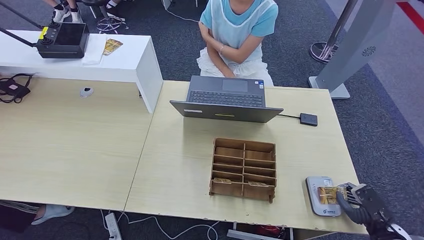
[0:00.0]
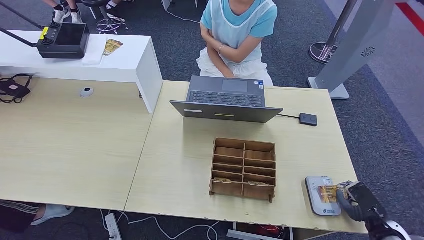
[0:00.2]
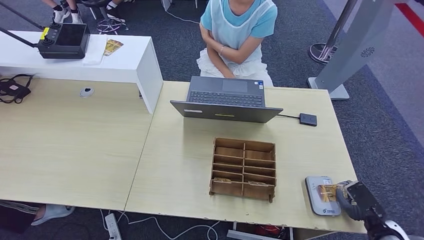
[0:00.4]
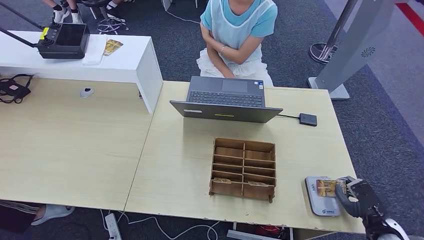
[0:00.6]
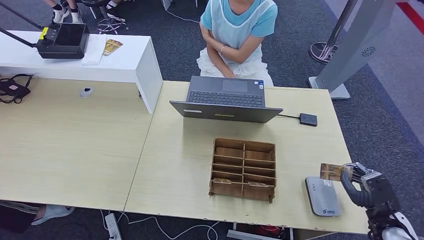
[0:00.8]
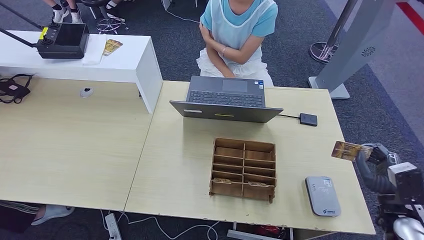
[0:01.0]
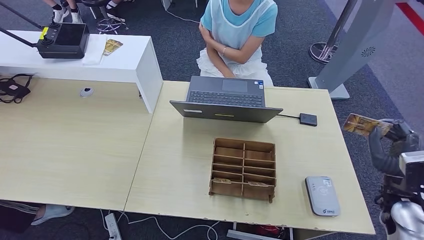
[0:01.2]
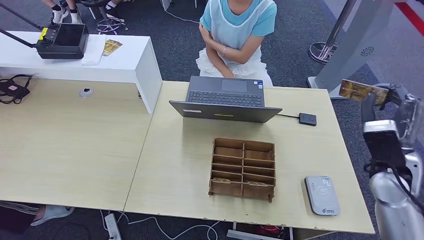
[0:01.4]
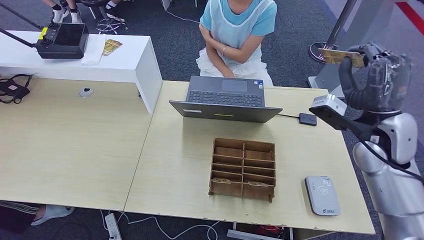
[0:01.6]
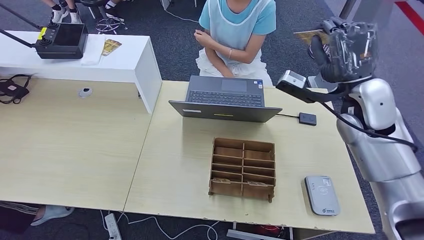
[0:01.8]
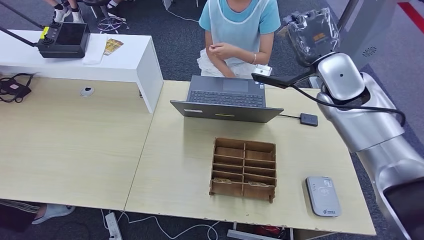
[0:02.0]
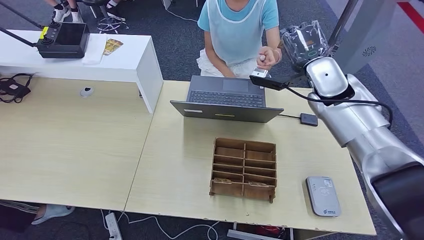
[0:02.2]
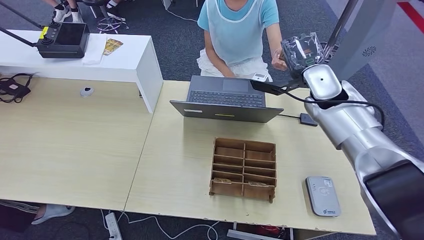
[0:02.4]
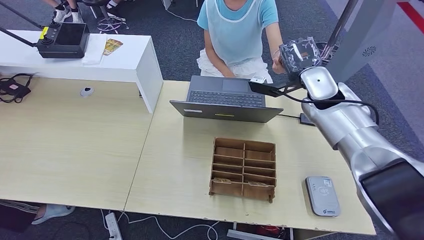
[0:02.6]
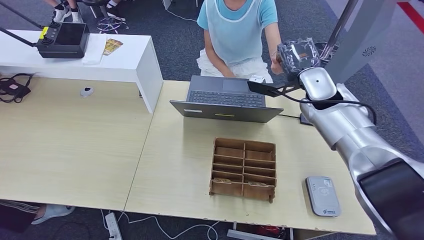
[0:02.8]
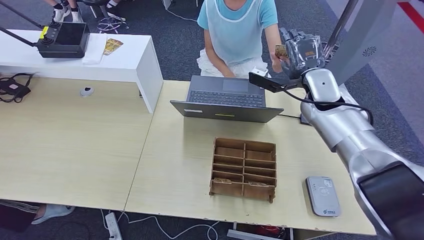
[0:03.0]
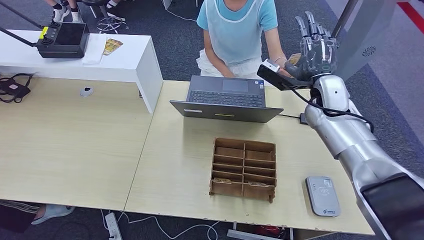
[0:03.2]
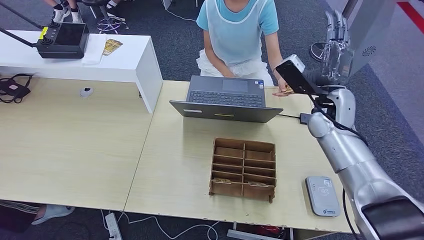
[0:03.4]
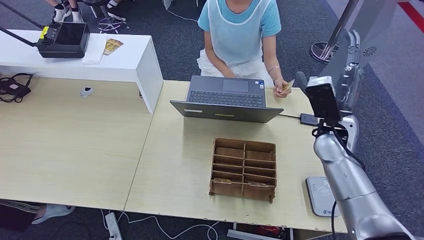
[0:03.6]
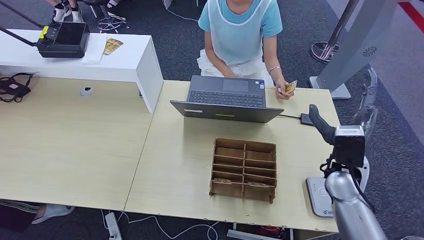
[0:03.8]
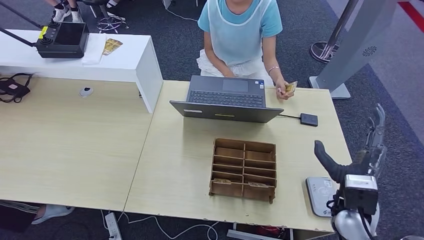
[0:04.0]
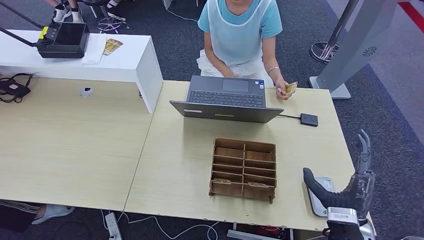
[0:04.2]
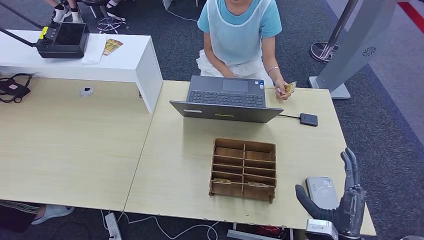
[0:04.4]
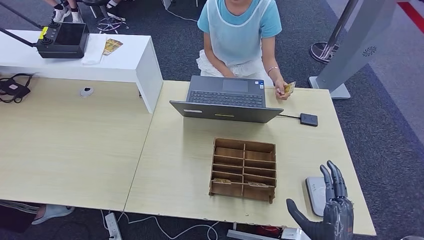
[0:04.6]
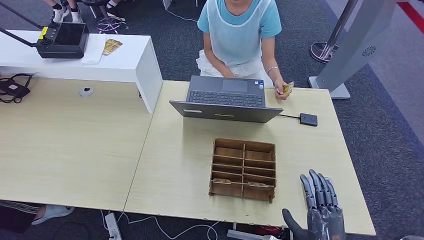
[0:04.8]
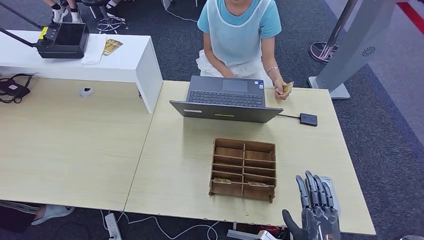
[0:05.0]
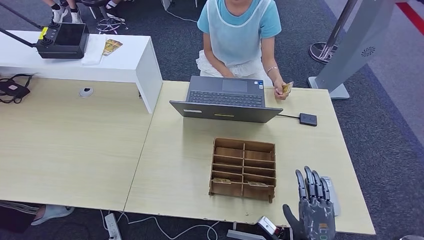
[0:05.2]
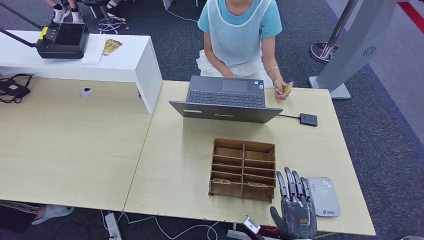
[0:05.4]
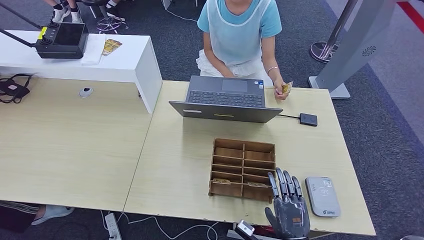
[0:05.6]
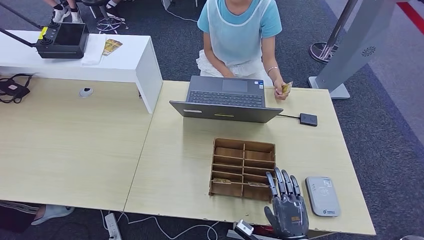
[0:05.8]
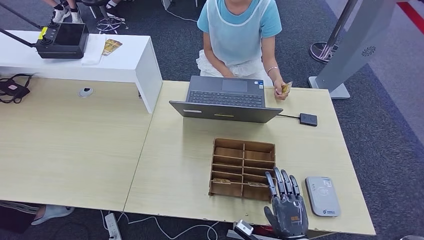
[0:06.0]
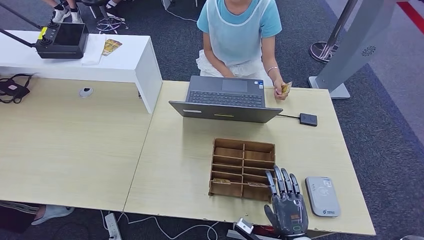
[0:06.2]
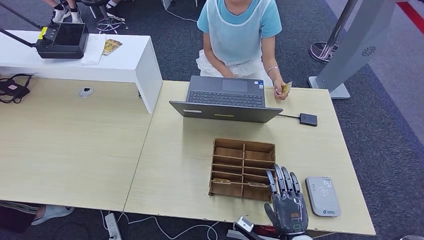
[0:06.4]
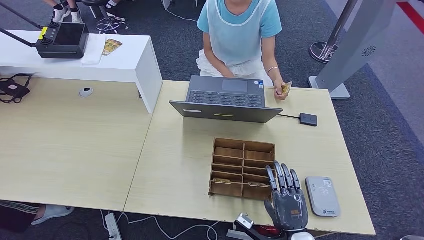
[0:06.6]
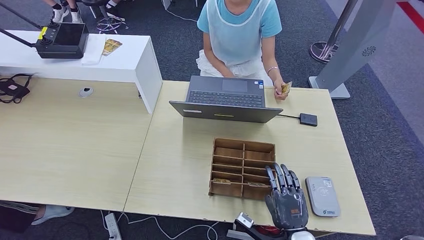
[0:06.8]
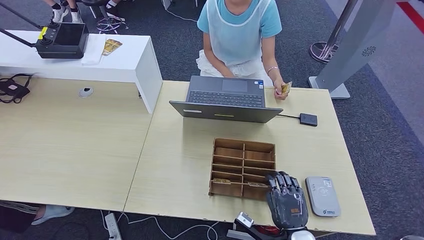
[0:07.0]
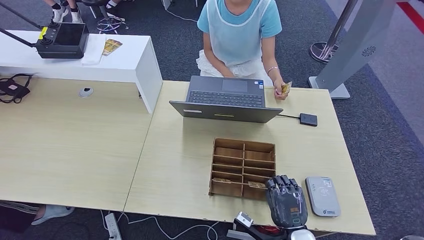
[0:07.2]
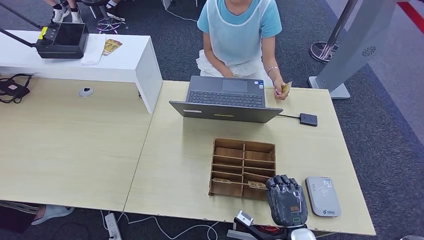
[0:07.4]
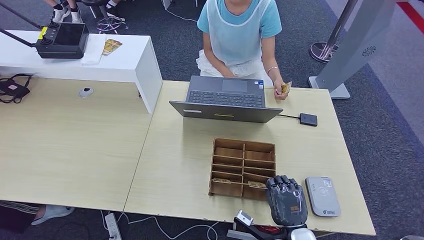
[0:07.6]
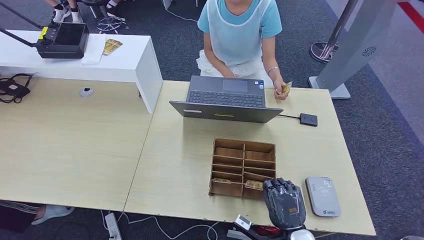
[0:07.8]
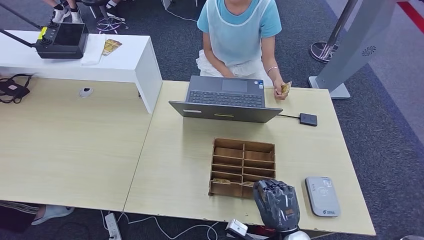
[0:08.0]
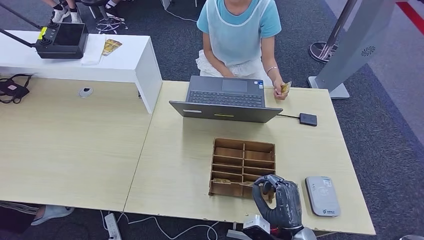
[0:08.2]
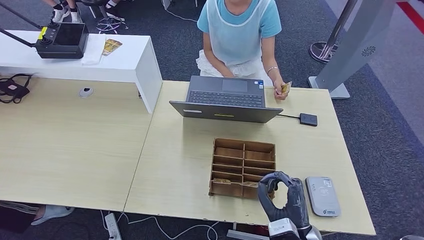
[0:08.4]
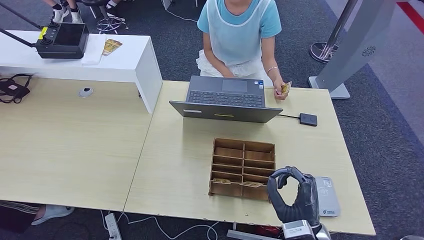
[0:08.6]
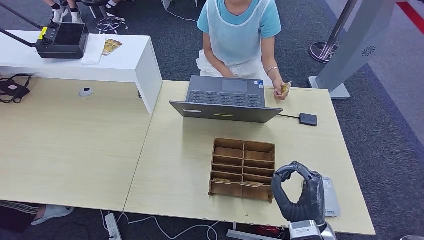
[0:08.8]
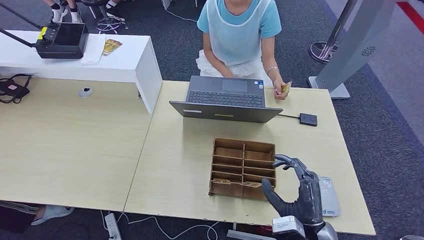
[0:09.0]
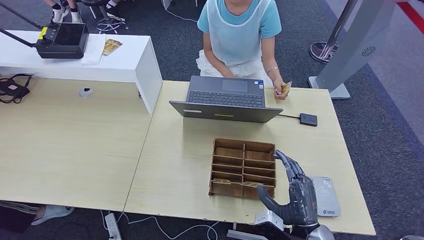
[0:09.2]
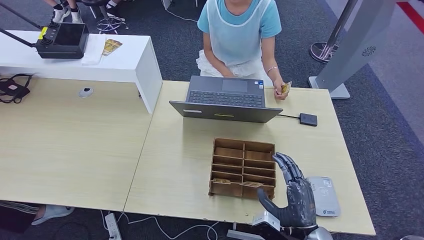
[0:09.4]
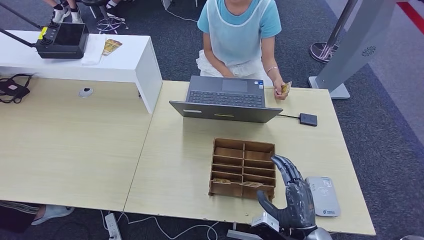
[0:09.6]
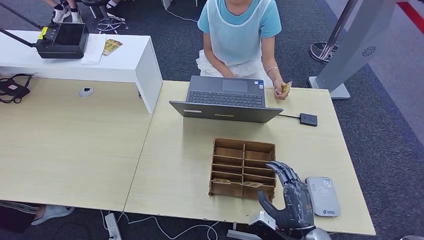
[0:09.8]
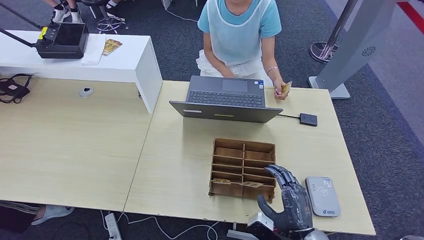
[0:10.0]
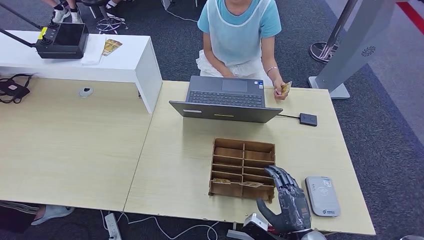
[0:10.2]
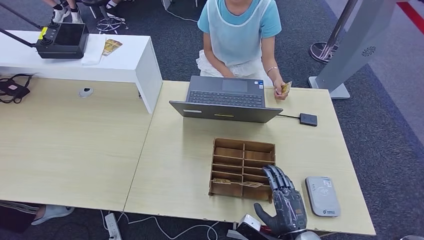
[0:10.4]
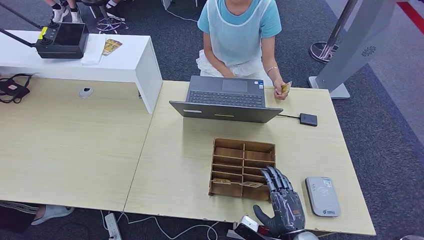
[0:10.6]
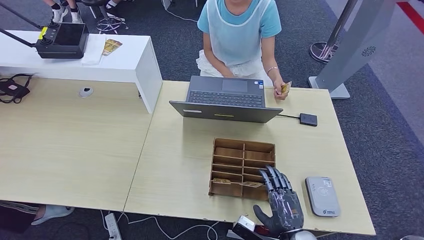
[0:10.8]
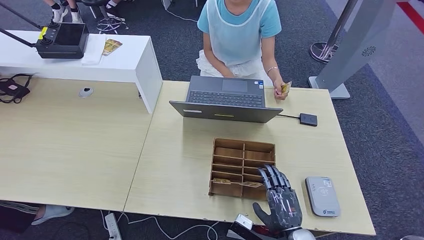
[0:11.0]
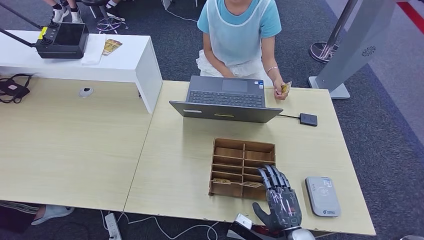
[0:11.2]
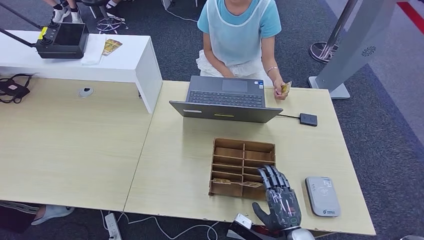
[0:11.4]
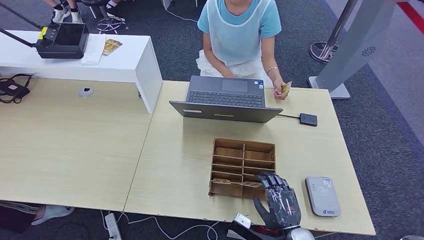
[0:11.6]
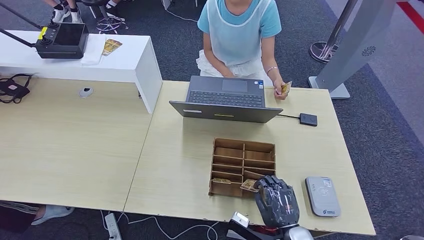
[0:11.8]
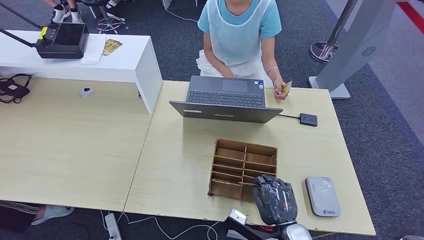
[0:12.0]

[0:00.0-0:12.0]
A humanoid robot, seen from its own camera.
Step, 0.0 to 2.4 s: Place the ID card on the card reader.
Step, 2.6 to 4.4 s: Hand the ID card to the person.
0.0 to 1.6 s: The right hand heads upward, forward and to the left, covering some 35 cm.
1.6 to 3.0 s: The right hand shifts approximately 15 cm forward and to the left.
3.0 to 4.4 s: The right hand travels backward and downward by roughly 35 cm.
4.4 to 6.0 s: The right hand travels downward and to the left by approximately 10 cm.
6.0 to 7.6 s: The hands stay close to where they were, moving slightly.
7.6 to 9.0 s: The right hand moves upward, roughly 10 cm.
9.0 to 10.4 s: The right hand shifts roughly 5 cm downward.
10.4 to 12.0 s: The hands stay close to where they were, moving slightly.

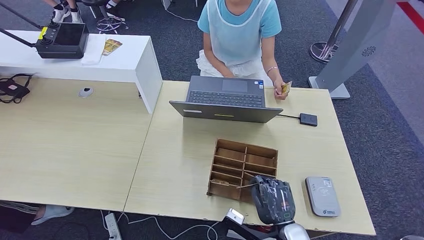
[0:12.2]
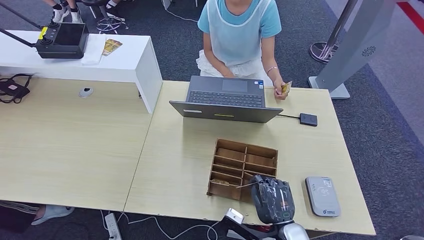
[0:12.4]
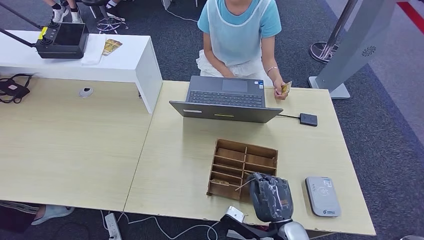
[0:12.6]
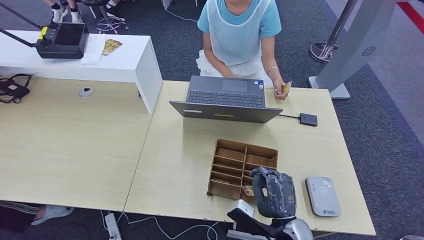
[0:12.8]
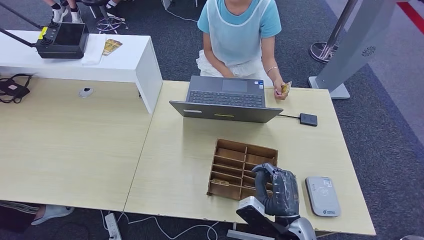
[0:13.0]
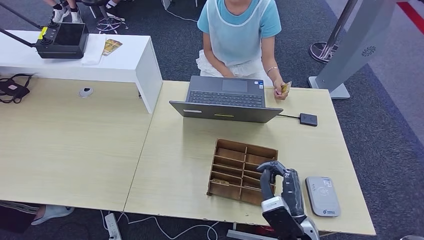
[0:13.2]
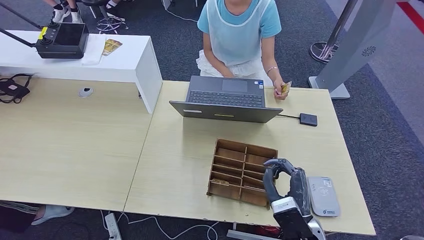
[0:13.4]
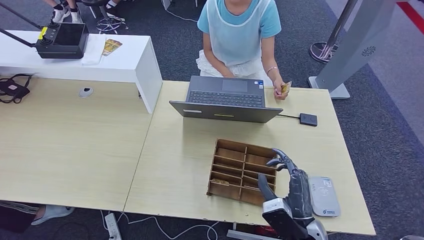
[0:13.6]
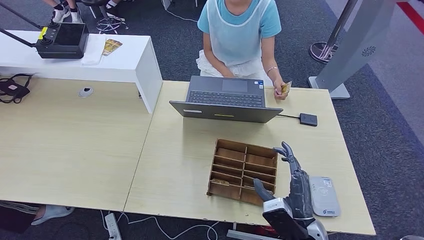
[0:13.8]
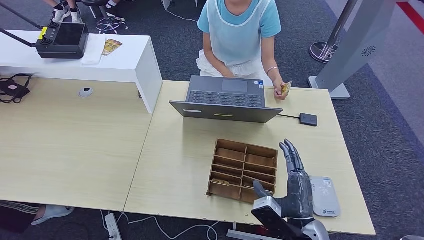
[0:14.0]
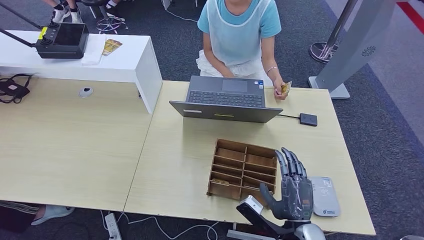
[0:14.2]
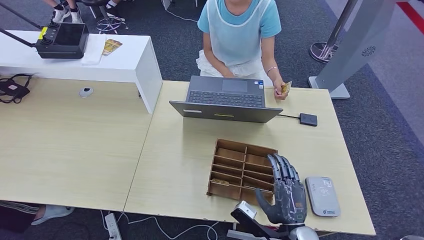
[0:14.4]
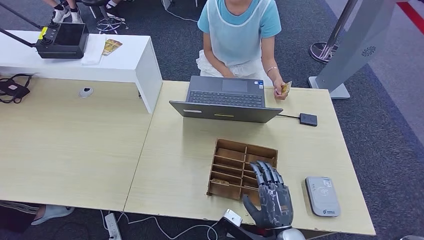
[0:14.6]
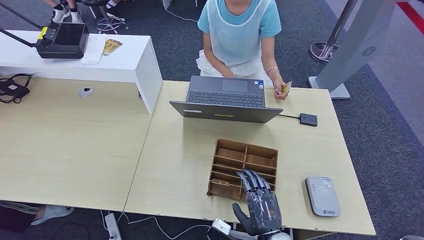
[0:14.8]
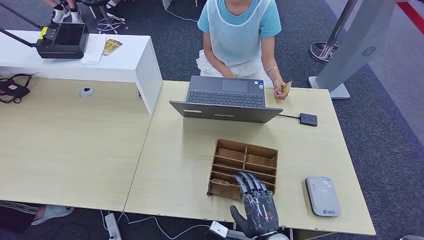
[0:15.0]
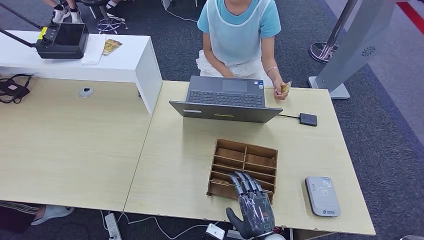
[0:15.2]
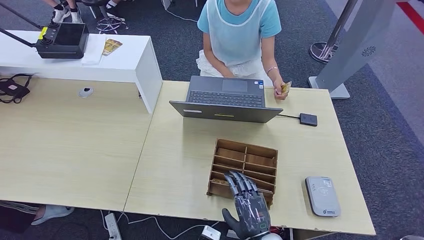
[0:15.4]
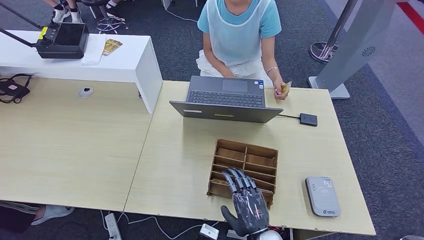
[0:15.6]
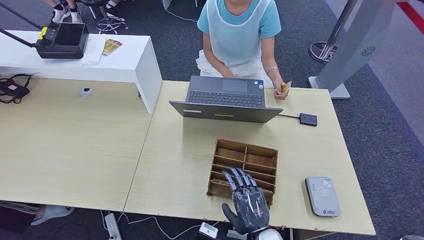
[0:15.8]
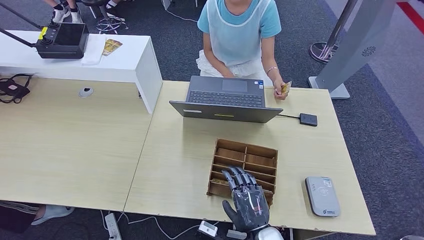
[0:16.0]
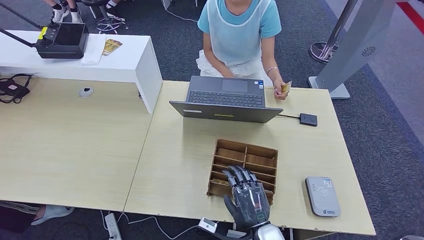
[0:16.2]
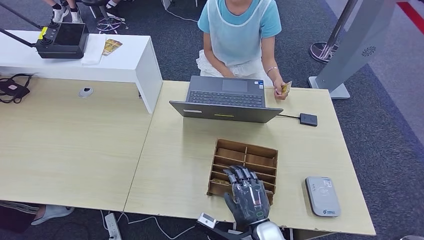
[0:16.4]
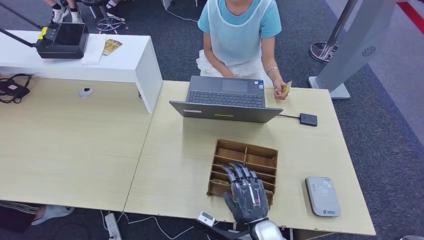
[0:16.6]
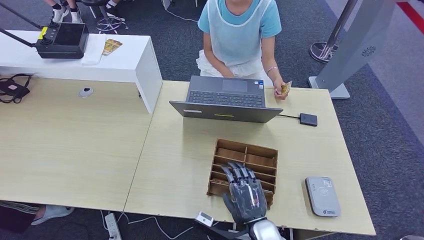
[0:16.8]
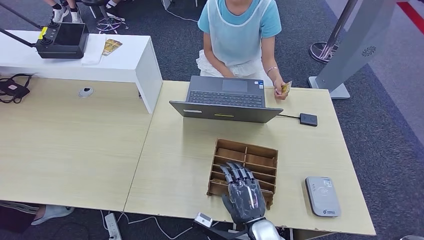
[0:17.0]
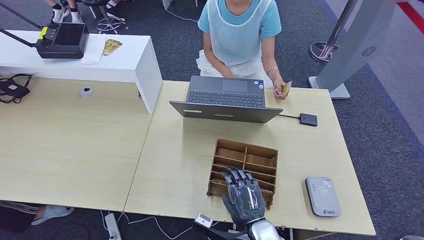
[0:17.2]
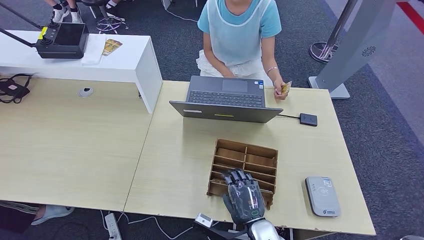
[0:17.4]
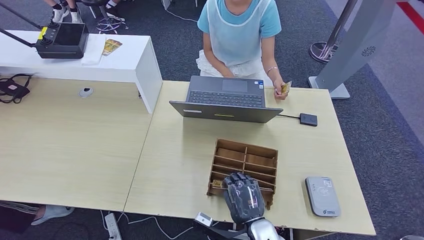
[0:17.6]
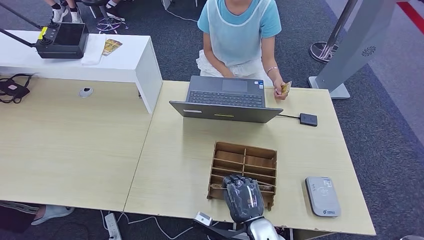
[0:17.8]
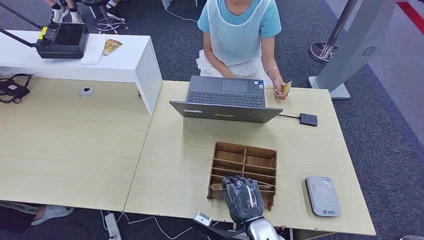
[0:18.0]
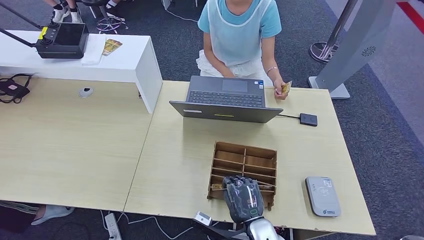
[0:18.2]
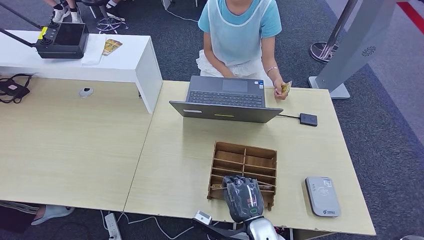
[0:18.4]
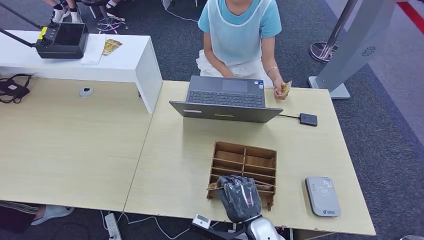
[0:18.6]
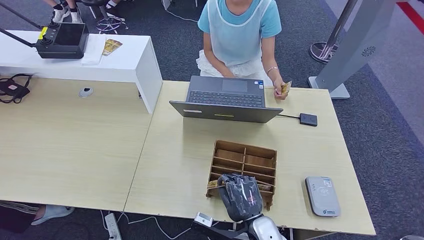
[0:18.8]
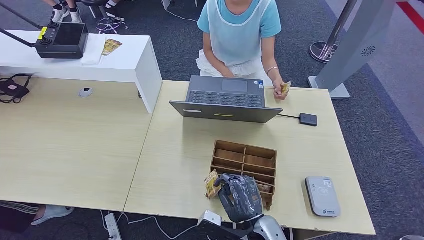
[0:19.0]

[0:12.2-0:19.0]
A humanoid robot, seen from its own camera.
12.2 to 13.6 s: The right hand moves some 5 cm.
13.6 to 15.0 s: The right hand travels to the left and downward by approximately 10 cm.
15.0 to 17.6 s: There are only small adjustments of the hands.
